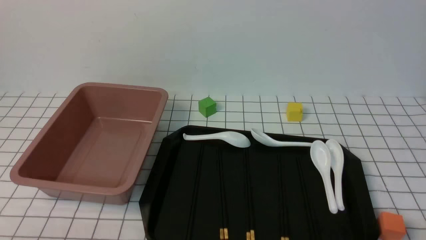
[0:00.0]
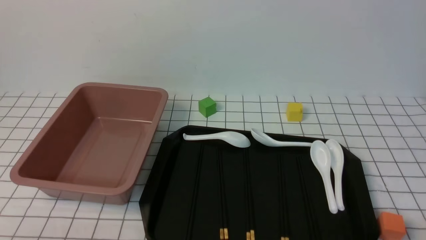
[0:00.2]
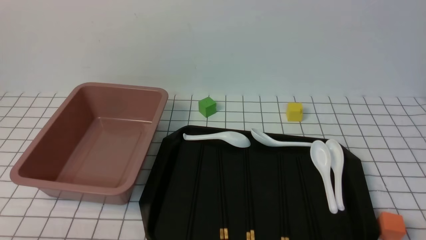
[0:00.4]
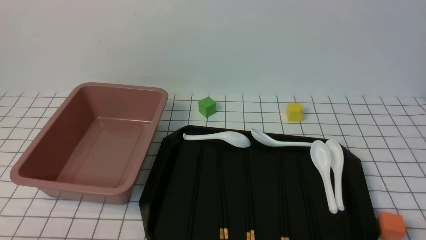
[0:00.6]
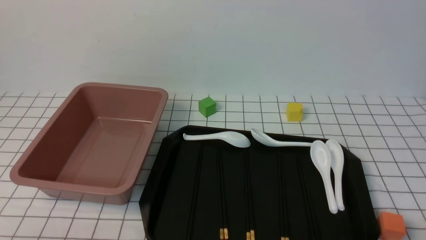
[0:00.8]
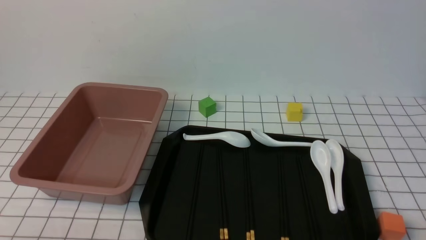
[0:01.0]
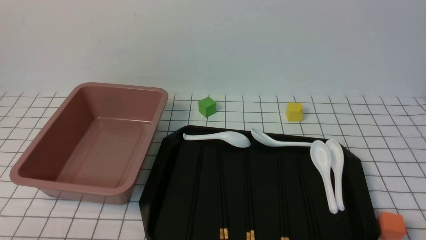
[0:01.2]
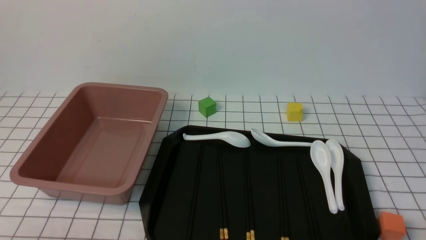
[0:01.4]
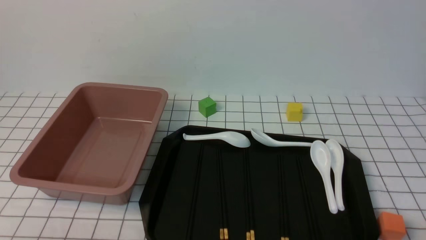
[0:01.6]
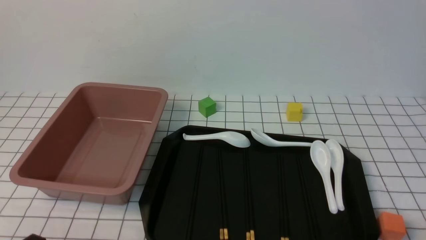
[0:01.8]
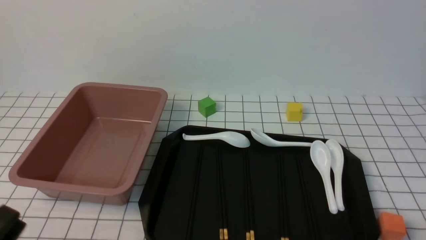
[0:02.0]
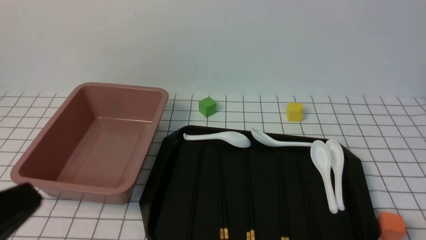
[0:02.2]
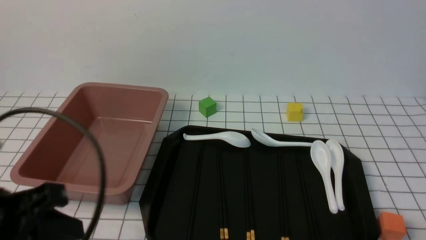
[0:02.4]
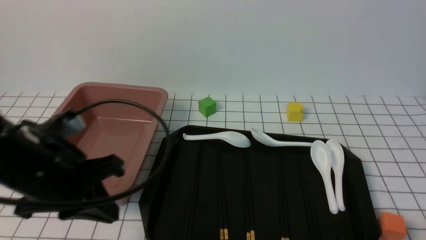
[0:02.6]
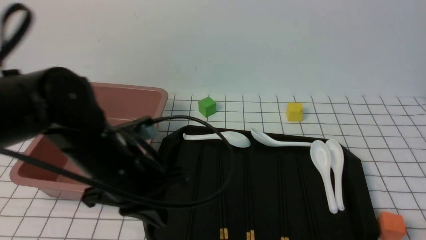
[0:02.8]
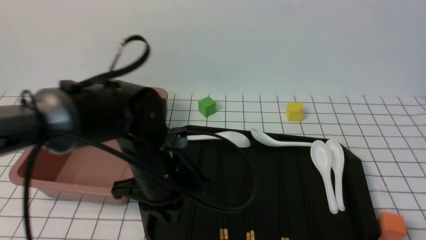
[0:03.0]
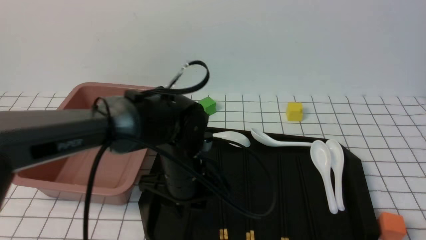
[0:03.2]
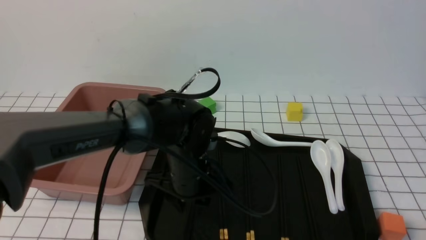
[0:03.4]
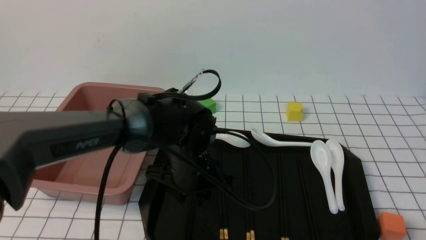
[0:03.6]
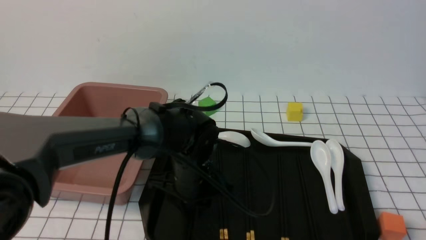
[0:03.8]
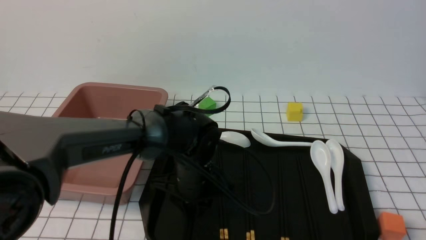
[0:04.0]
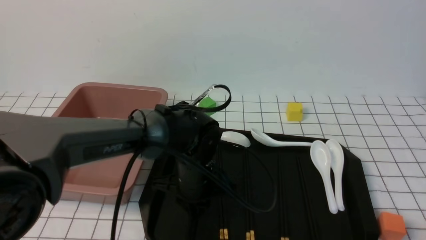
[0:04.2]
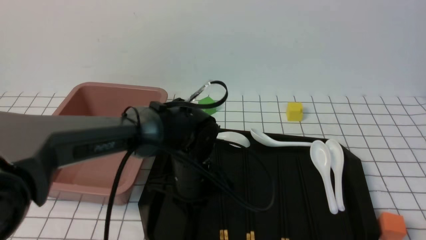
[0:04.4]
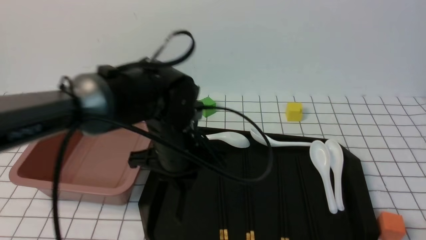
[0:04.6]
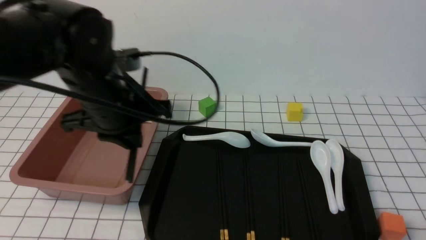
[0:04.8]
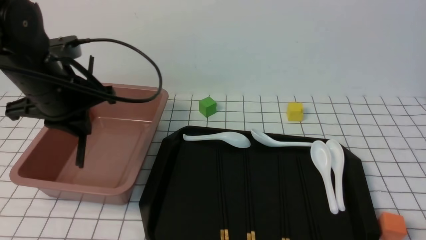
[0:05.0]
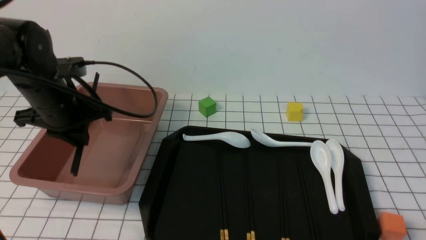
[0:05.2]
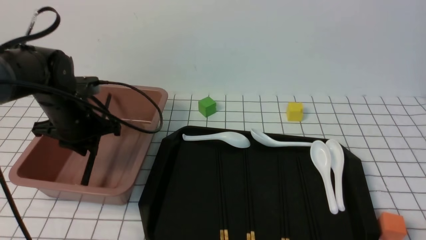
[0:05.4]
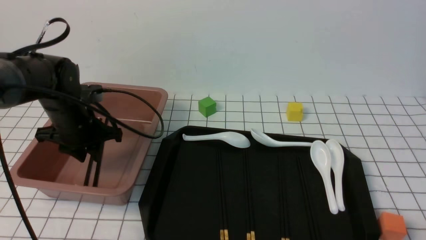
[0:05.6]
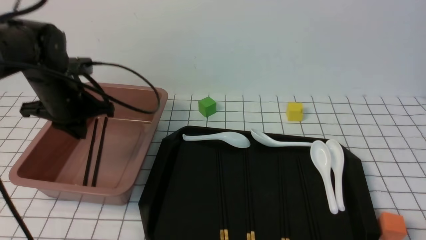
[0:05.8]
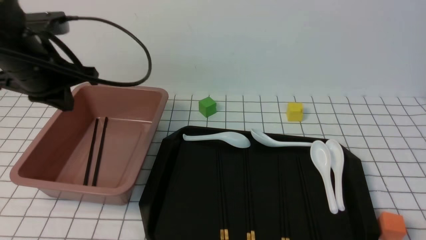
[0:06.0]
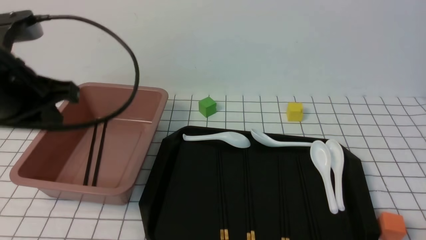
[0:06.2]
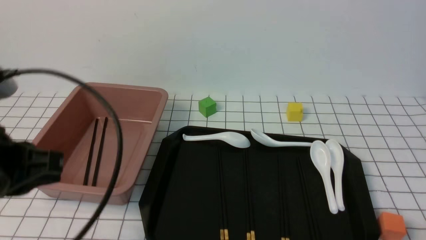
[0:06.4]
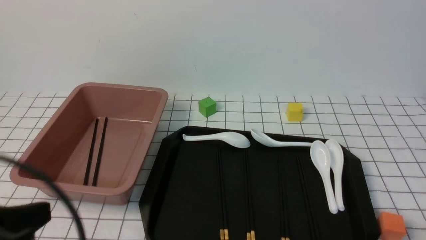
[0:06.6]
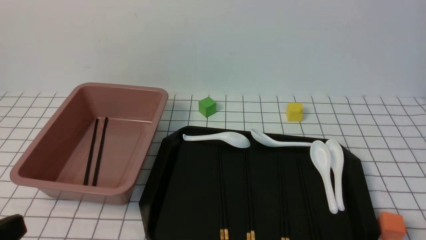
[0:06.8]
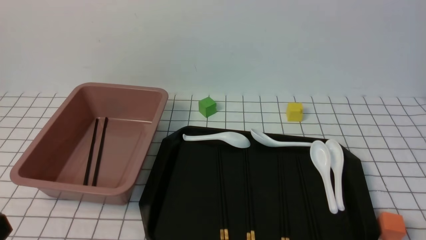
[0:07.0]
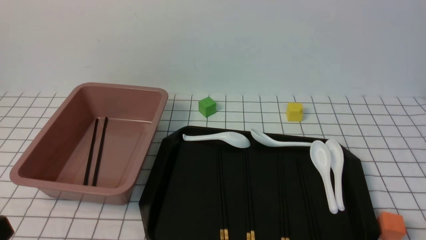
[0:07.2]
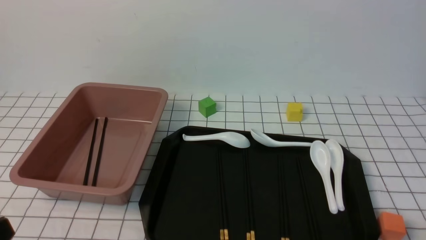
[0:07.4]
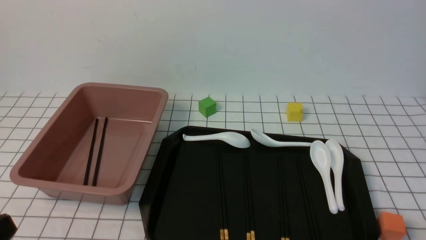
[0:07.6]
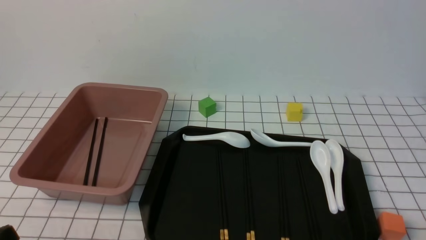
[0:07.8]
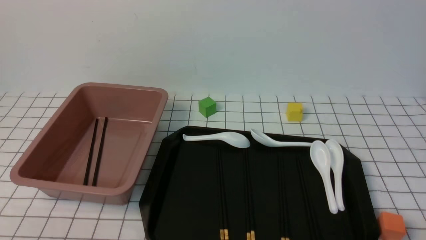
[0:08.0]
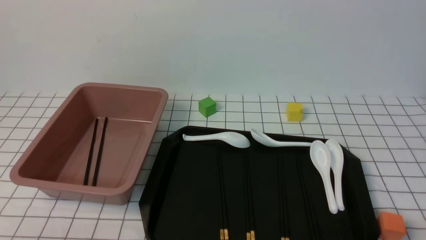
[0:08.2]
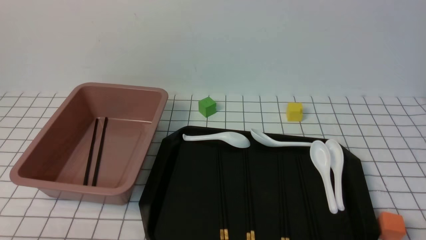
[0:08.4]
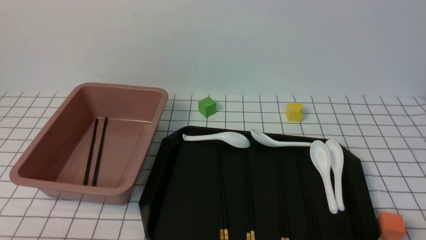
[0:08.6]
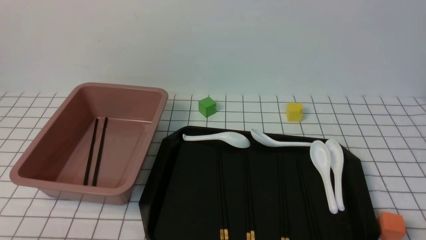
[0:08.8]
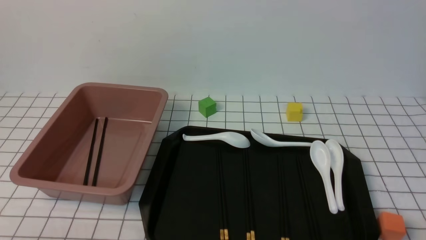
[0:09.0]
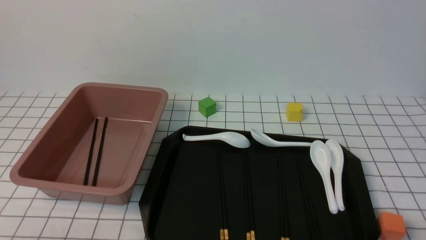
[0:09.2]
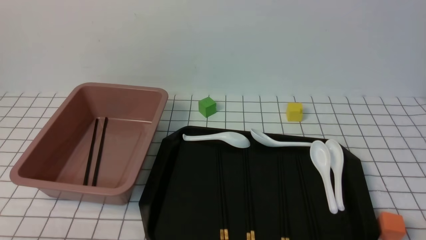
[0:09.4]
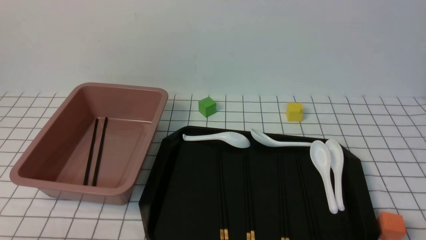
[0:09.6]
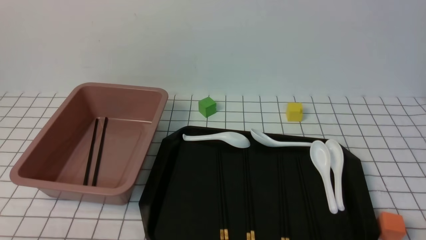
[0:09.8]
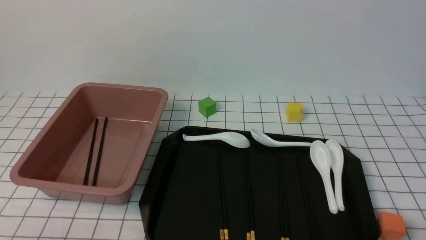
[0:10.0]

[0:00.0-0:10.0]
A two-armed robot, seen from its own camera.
Step, 0:00.0 to 0:04.4: use the left arm to grab a pair of chopsticks.
Step, 0:04.6 to 0:05.8: use the left arm to put the chopsticks into the lunch box.
0:01.4 to 0:02.8: The left gripper heads forward, to the right and upward, covering roughly 25 cm, and closes.
0:02.8 to 0:04.2: The left gripper goes some 20 cm to the right, downward and forward, and opens its fingers.
0:04.2 to 0:05.8: The left gripper moves to the left and upward, about 25 cm.
0:05.8 to 0:07.2: The left gripper shifts some 35 cm backward, and closes.
0:08.6 to 0:10.0: Both grippers stay put.

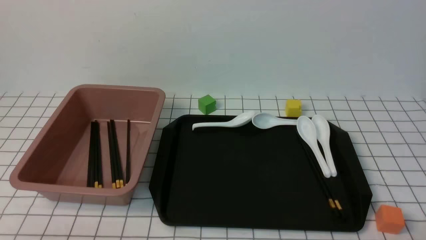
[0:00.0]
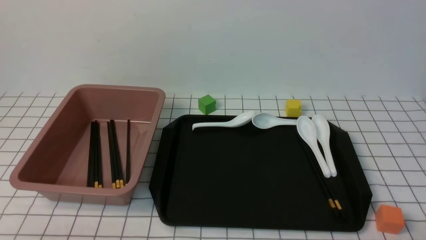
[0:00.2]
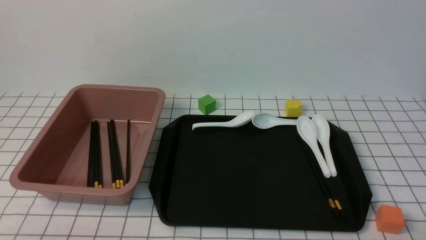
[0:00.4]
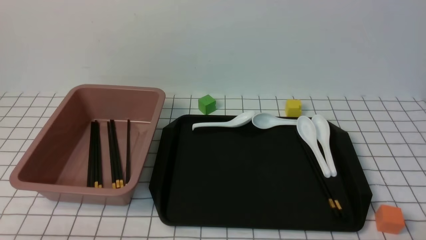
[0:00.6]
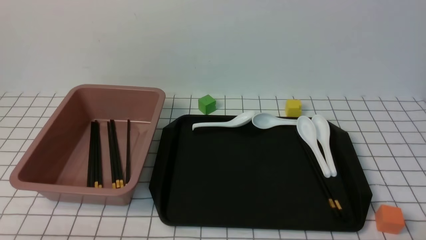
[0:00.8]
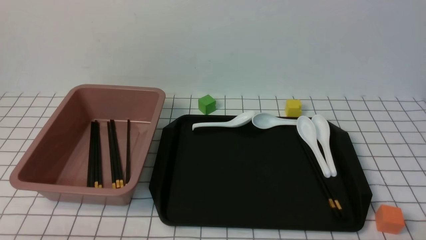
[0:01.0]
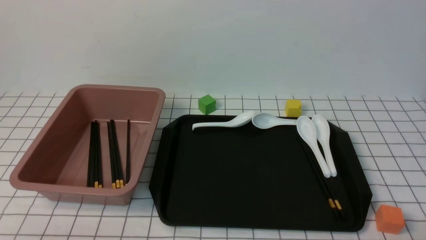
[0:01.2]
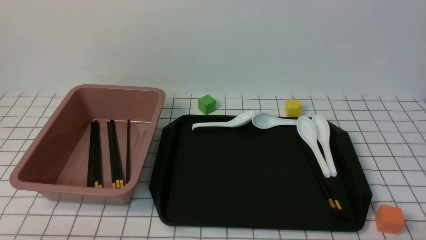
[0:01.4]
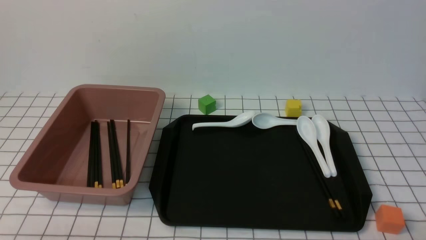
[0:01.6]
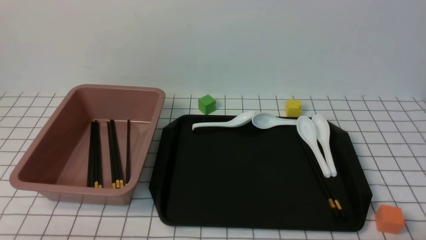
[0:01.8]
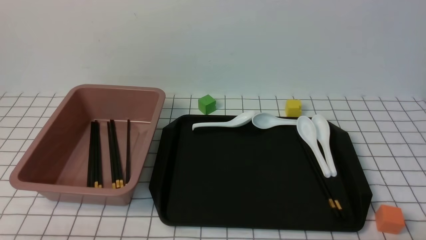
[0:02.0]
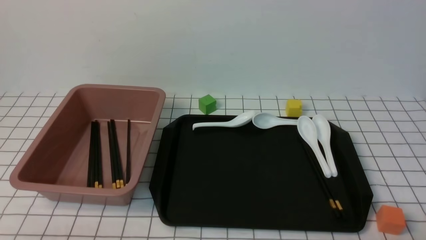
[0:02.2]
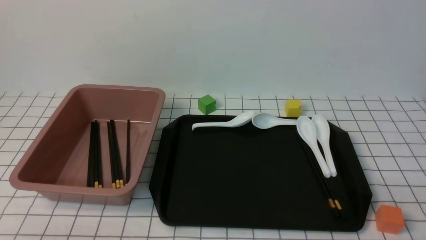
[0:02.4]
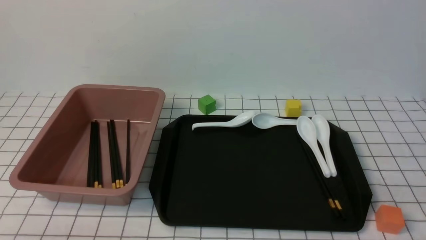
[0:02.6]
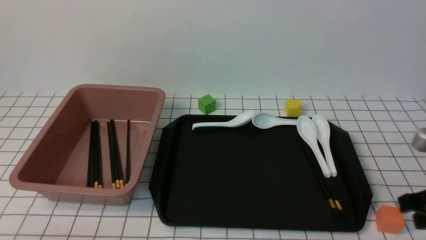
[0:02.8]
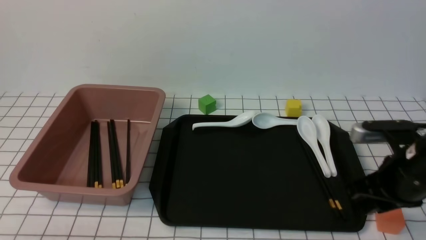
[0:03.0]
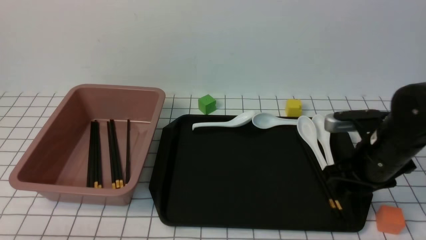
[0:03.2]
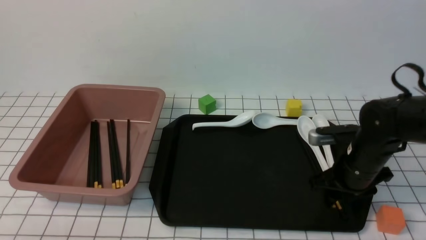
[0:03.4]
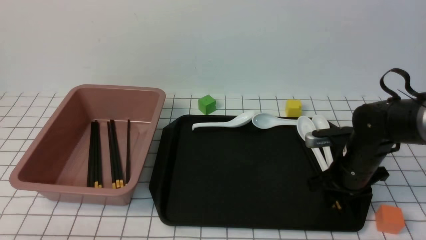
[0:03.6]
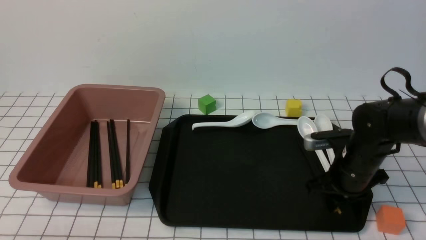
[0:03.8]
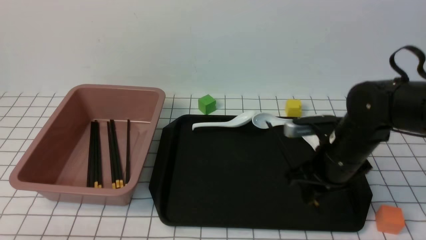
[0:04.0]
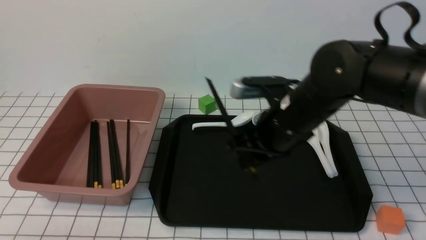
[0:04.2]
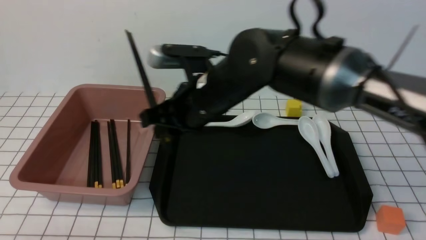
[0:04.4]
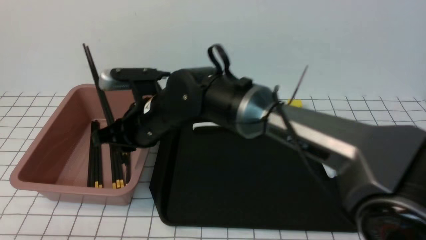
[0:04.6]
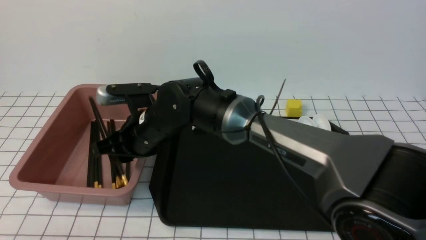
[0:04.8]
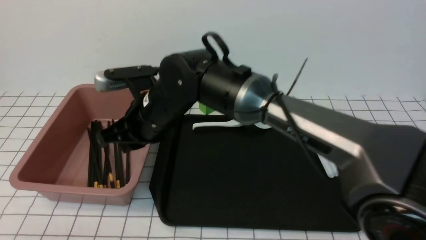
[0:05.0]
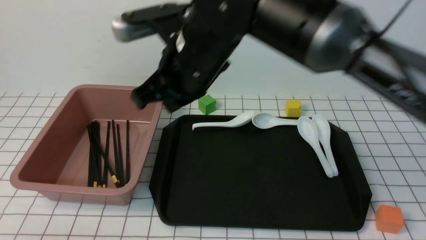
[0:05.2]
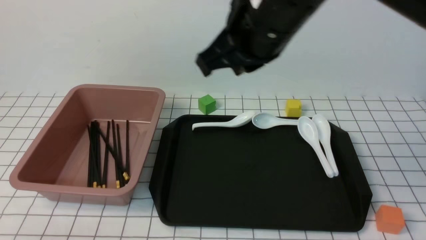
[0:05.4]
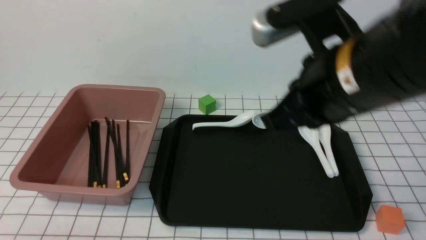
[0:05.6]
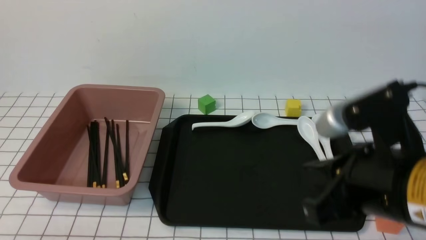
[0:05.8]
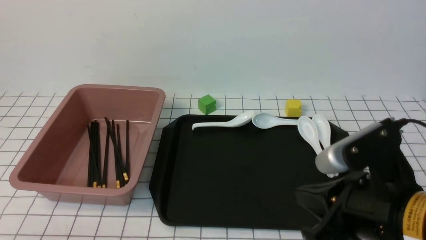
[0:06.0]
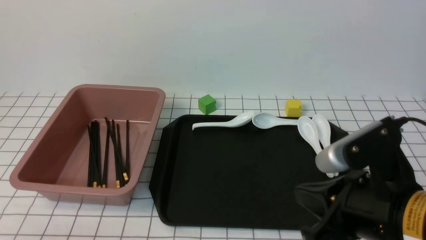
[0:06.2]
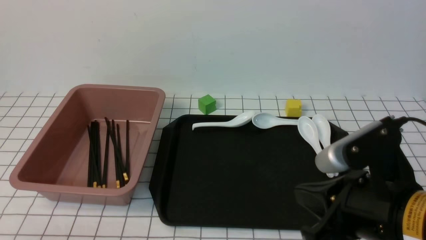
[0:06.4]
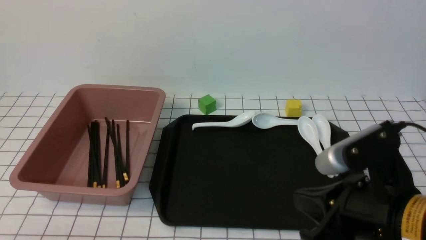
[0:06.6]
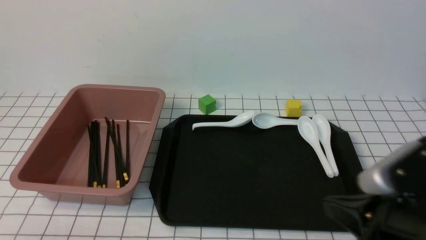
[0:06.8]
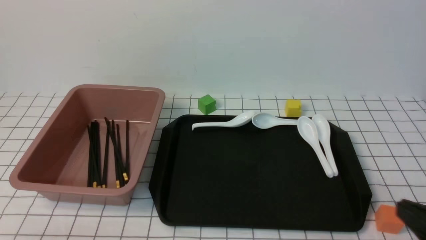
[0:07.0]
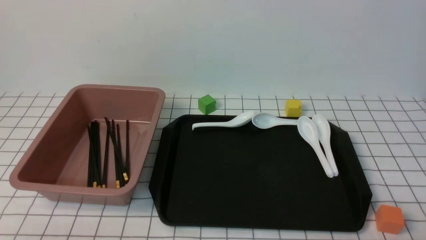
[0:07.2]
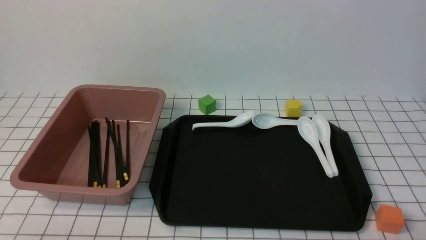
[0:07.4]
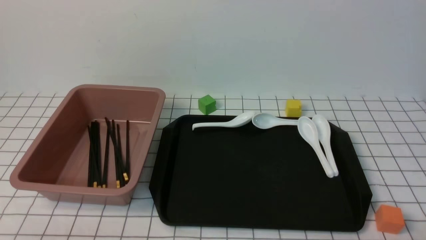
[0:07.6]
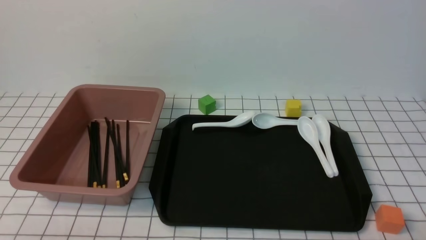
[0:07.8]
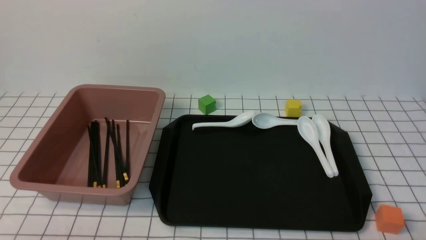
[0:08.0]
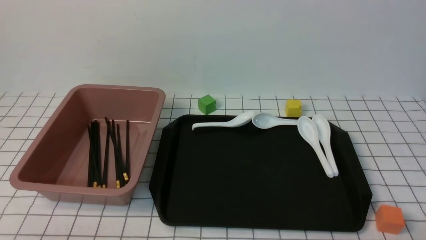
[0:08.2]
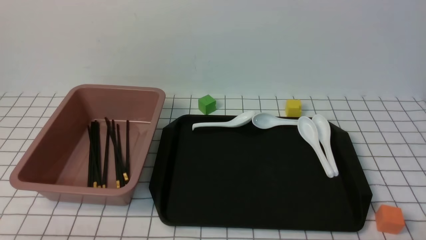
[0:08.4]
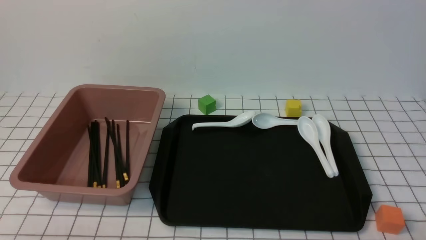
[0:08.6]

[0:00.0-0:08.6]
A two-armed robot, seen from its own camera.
Step, 0:00.0 to 0:03.8: use the right arm to grab a pair of chopsticks.
Step, 0:04.0 to 0:05.0: use the right arm to put the chopsticks into the lunch box.
0:01.4 to 0:02.8: The right gripper moves forward and upward, roughly 15 cm, and closes.
0:02.8 to 0:04.4: The right gripper is displaced to the left and forward by some 30 cm, and opens, then closes again.
0:04.4 to 0:05.8: The right gripper shifts about 20 cm backward, to the right and upward, and closes its fingers.
0:05.8 to 0:07.2: The right gripper heads to the right, downward and backward, covering about 20 cm.
